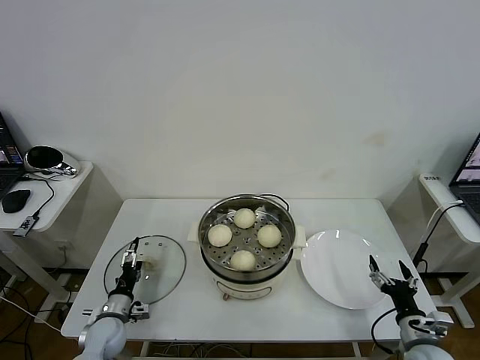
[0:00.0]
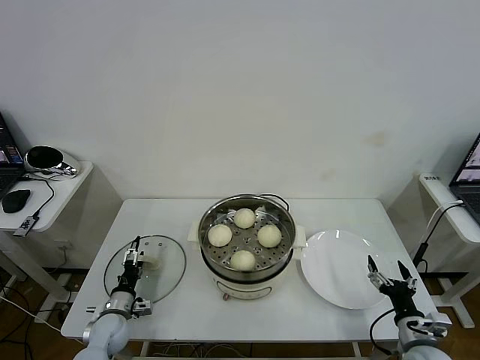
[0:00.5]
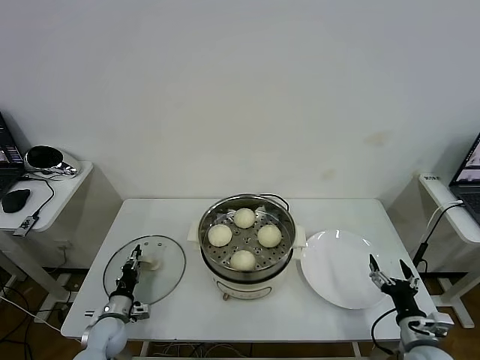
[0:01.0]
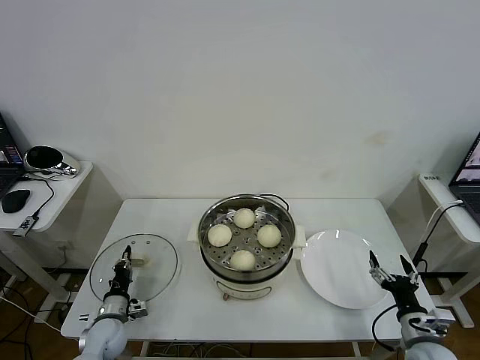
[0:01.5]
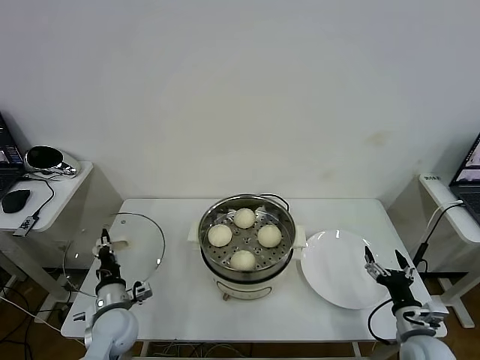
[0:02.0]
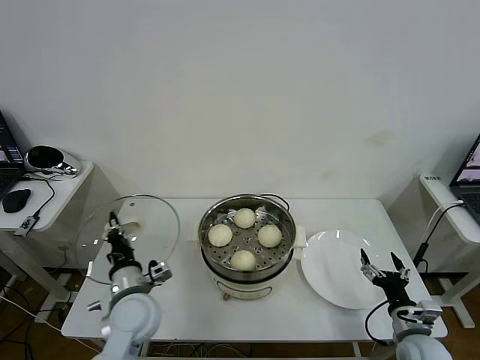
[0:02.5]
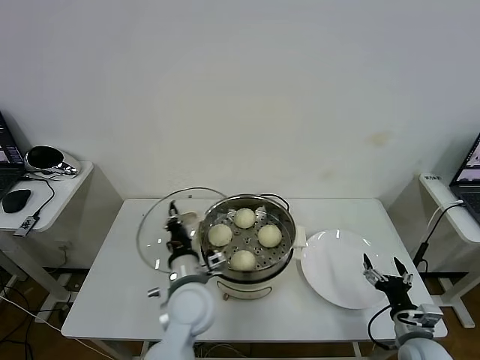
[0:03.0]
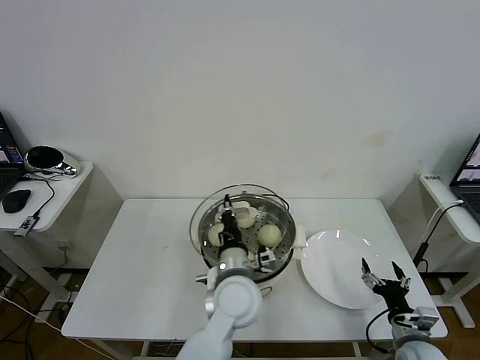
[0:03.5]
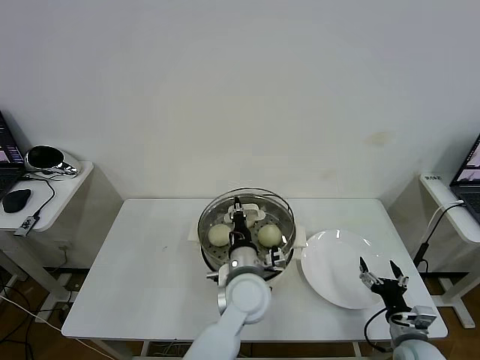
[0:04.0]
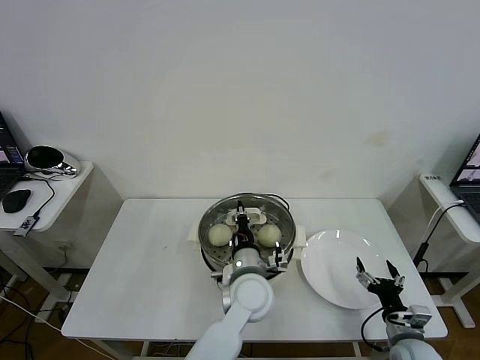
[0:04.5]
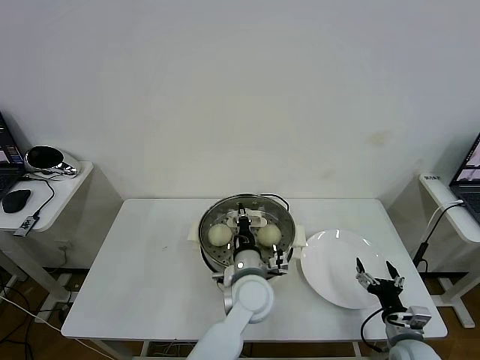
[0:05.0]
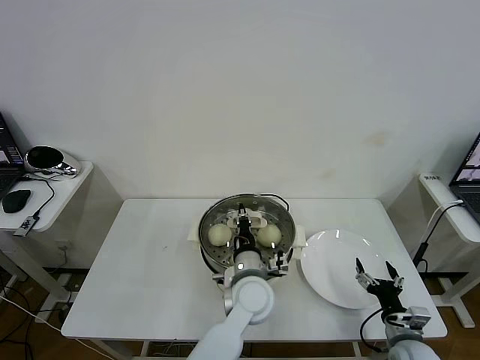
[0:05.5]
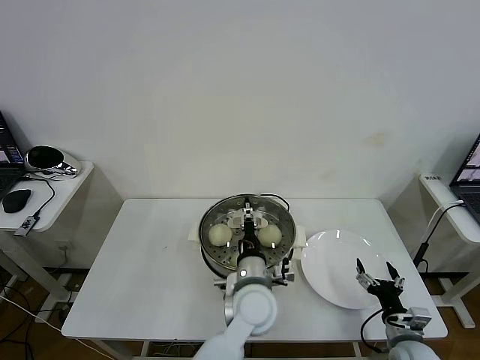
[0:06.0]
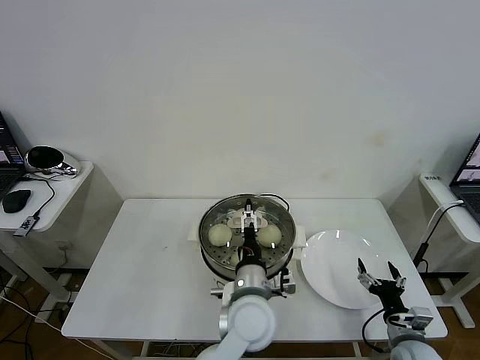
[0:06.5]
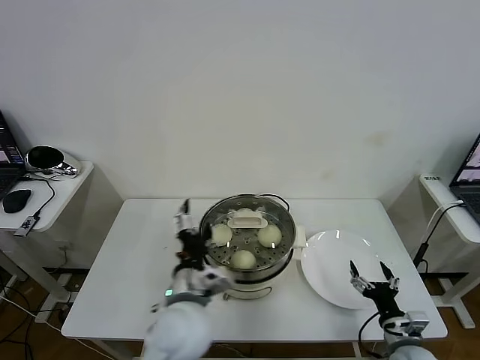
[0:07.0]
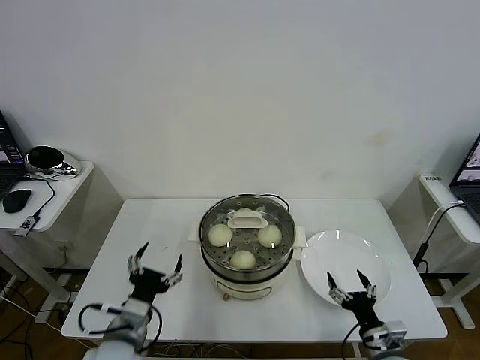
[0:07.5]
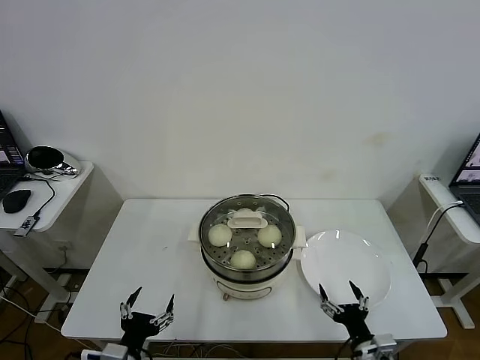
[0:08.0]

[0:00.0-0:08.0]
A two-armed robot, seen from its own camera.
Task of the whole recording: take steamed baozi put them in steamer then cover it.
Step, 0:02.0 to 0:06.0: Place the pot lid on the steamer with left gripper.
0:00.0 to 0:02.0: The left gripper is displaced upward and to the right by some 10 cm, and closes.
0:02.0 to 0:04.0: The left gripper heads to the right and upward, covering about 35 cm.
0:04.0 to 0:06.0: The left gripper opens up.
0:06.0 to 0:08.0: The right gripper travels to the left and backward by roughly 10 cm; the left gripper moves to the left and backward, approximately 30 cm, and opens its fingers.
